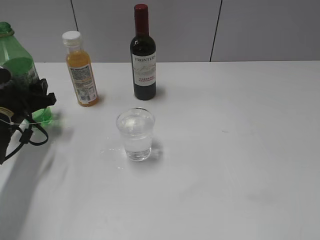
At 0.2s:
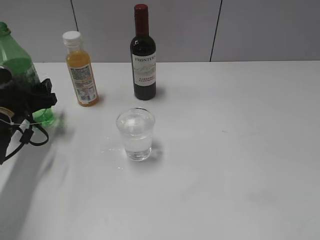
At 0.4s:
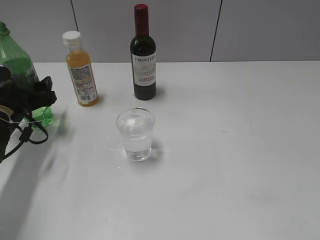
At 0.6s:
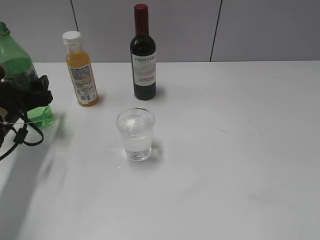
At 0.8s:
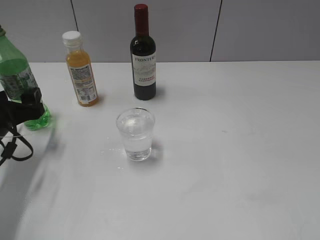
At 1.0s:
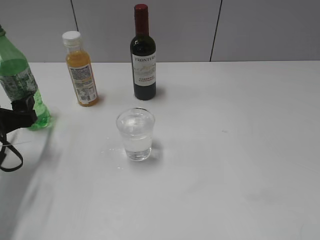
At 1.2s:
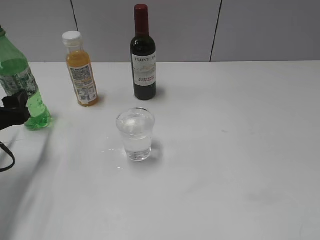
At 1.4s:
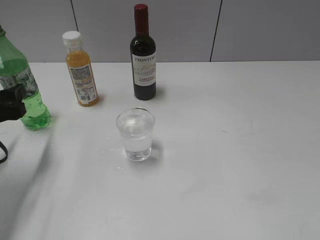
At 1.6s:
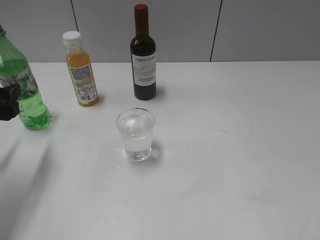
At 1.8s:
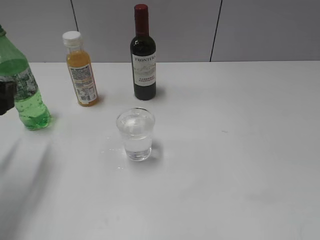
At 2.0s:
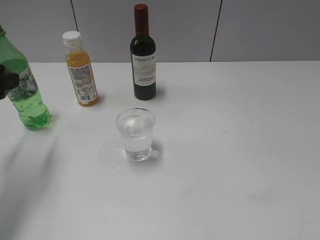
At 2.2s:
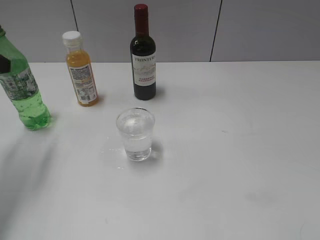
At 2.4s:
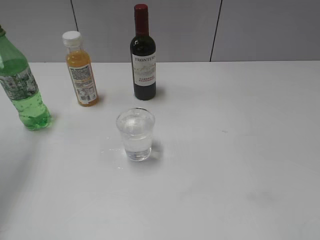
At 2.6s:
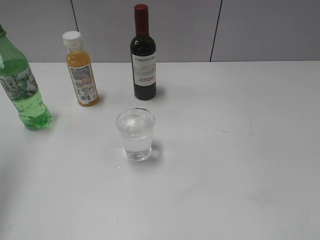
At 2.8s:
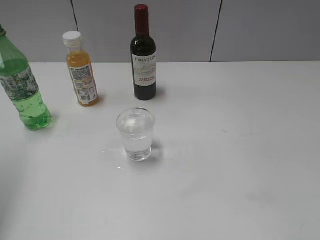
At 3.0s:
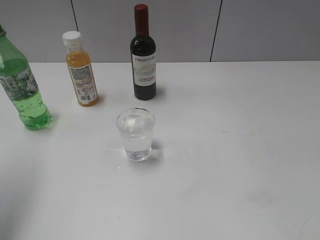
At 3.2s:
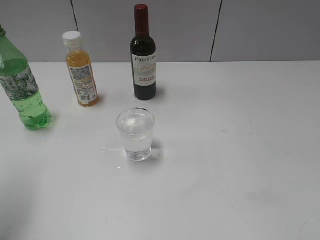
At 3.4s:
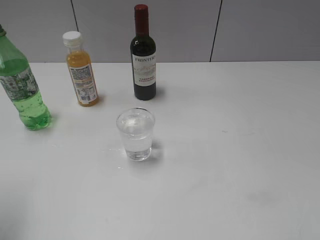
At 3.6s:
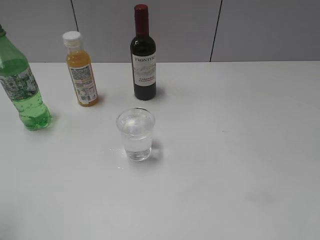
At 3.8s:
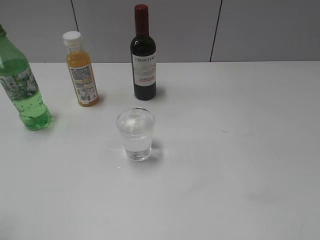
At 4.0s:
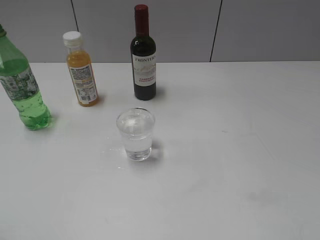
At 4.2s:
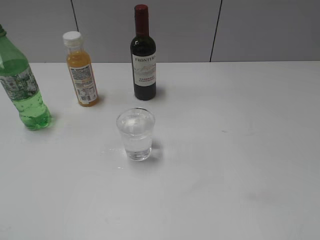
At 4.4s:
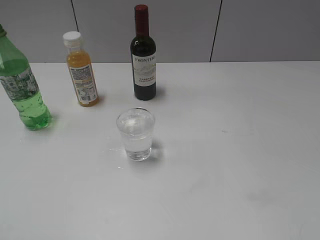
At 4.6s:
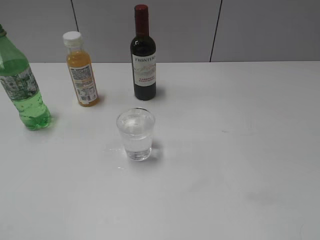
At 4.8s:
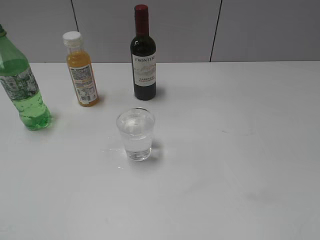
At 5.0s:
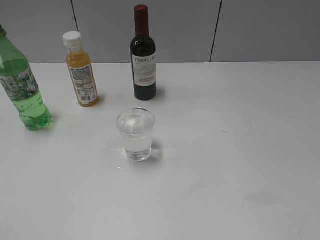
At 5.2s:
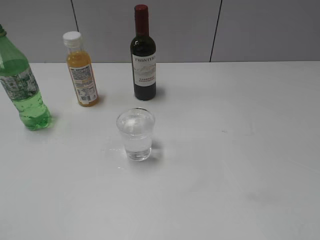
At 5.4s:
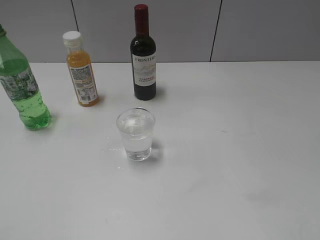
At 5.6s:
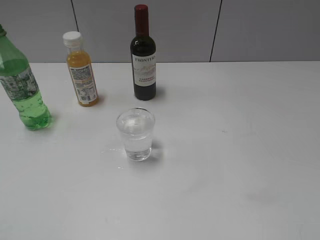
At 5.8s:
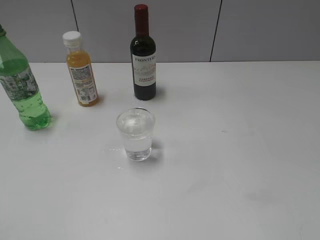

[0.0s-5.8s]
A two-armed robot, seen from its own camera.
0.0s to 1.4s: The left gripper is displaced backward and upward by about 10 cm.
1.4s to 2.8s: The left gripper travels upward by some 20 cm.
2.8s to 4.4s: The left gripper goes some 20 cm backward.
